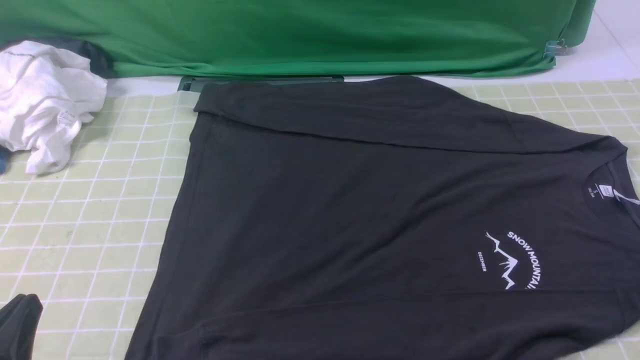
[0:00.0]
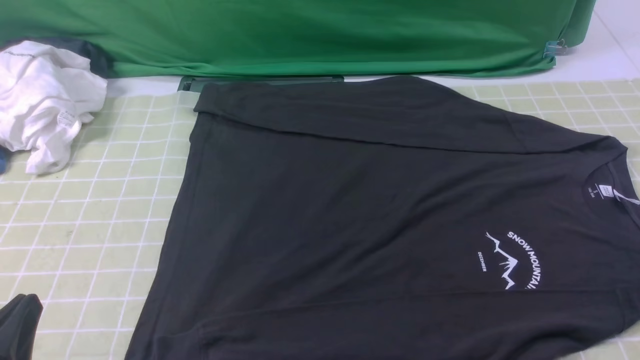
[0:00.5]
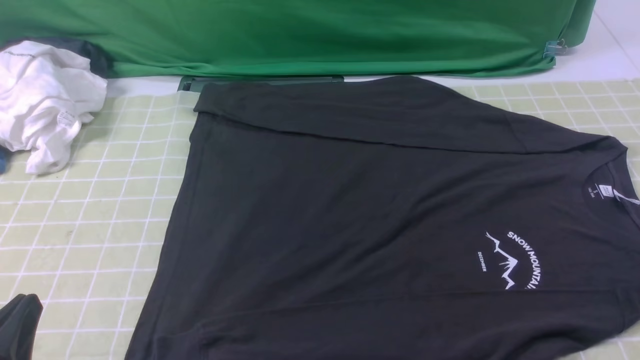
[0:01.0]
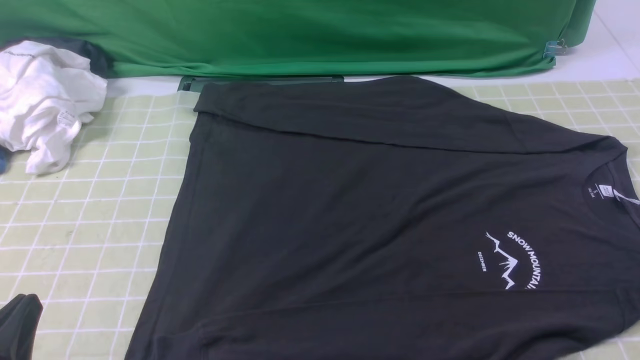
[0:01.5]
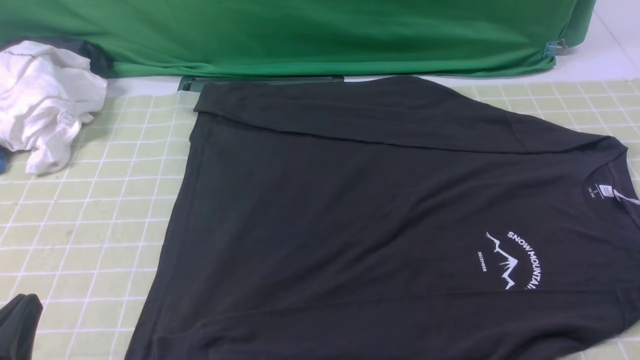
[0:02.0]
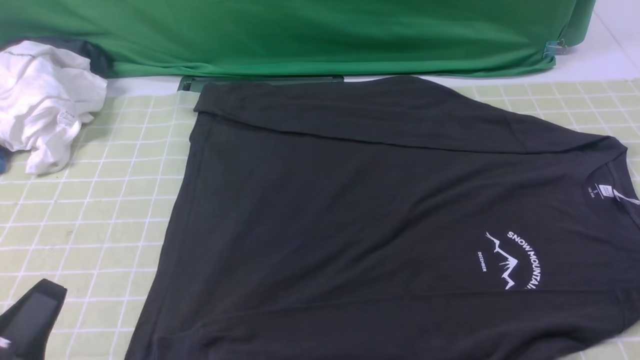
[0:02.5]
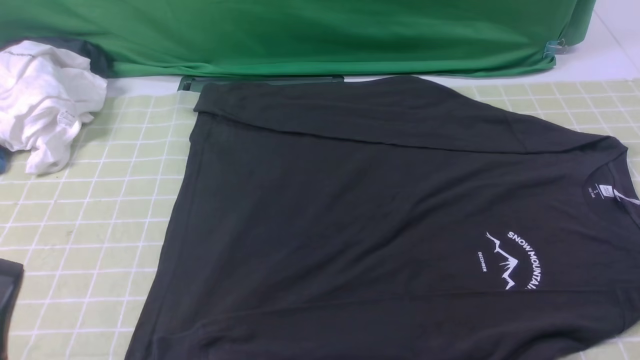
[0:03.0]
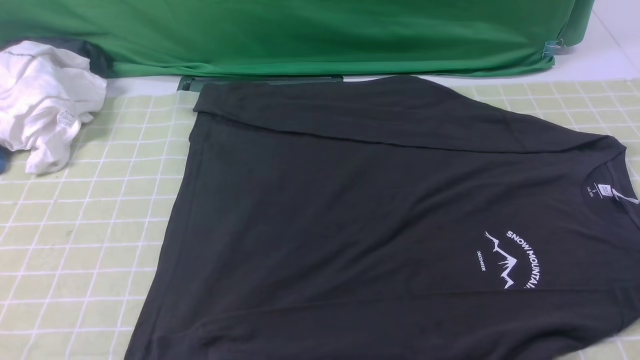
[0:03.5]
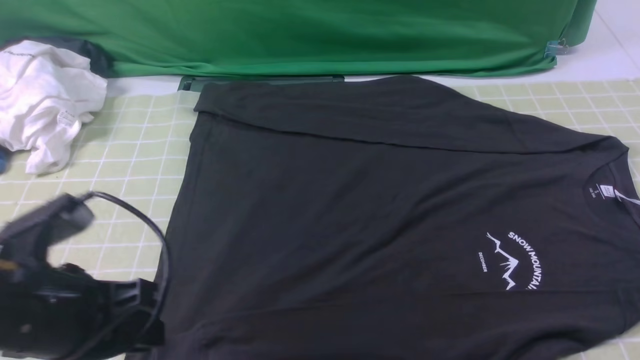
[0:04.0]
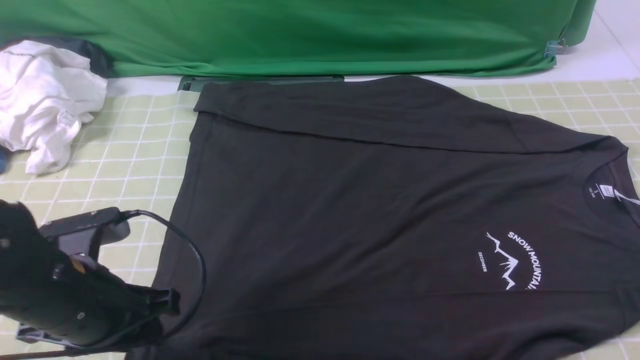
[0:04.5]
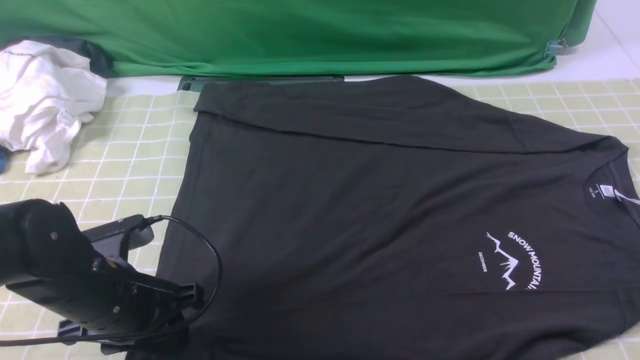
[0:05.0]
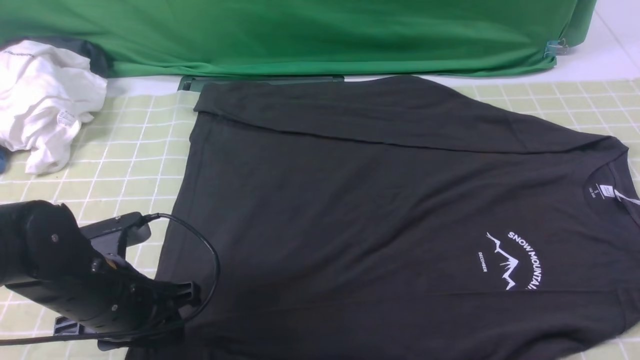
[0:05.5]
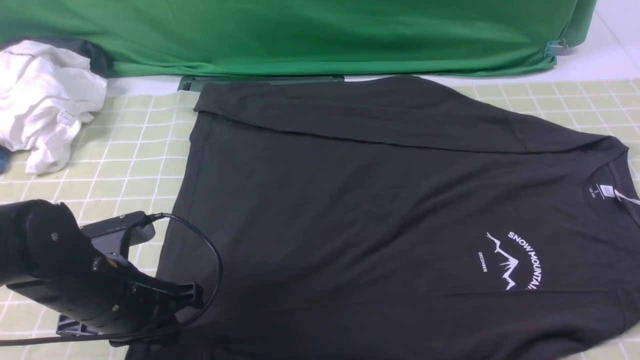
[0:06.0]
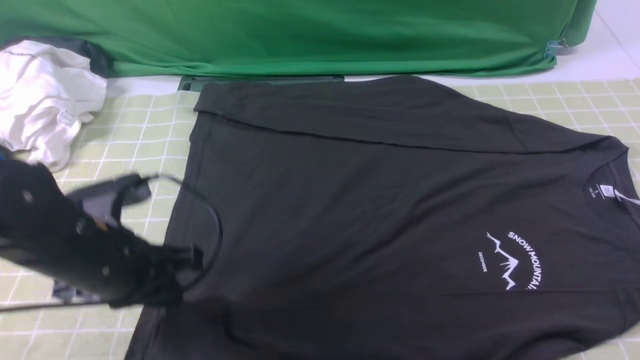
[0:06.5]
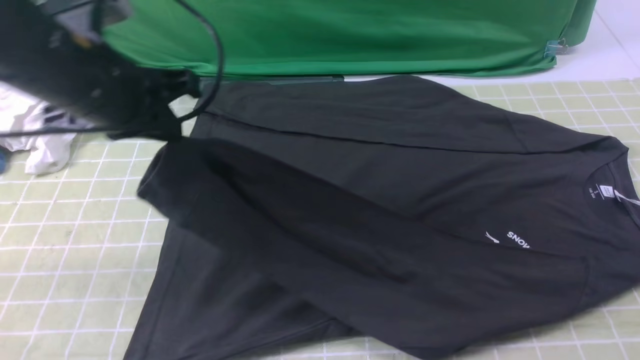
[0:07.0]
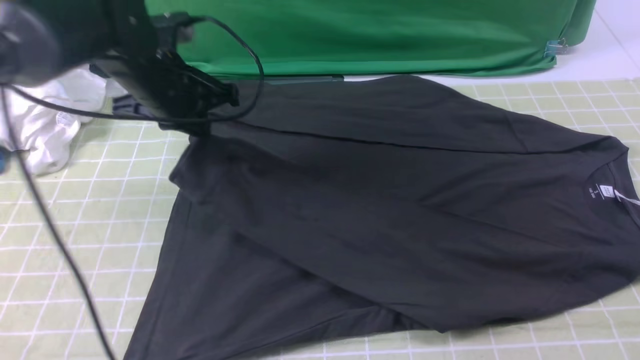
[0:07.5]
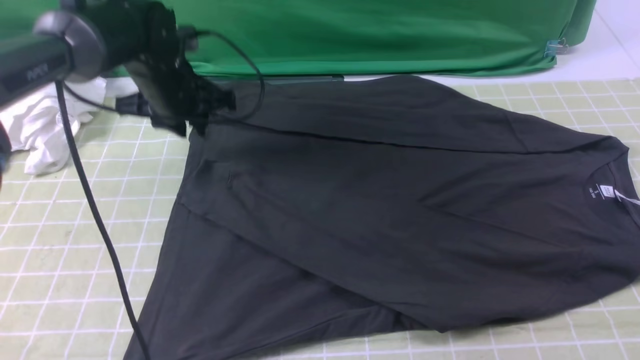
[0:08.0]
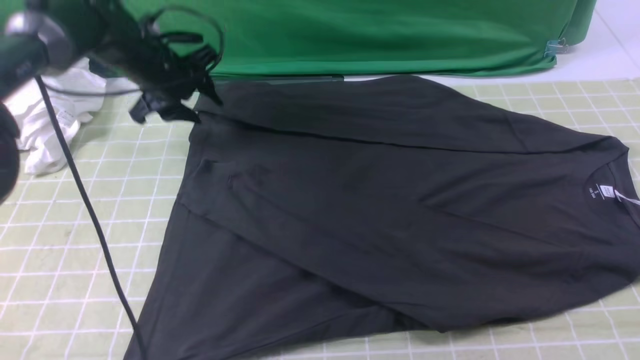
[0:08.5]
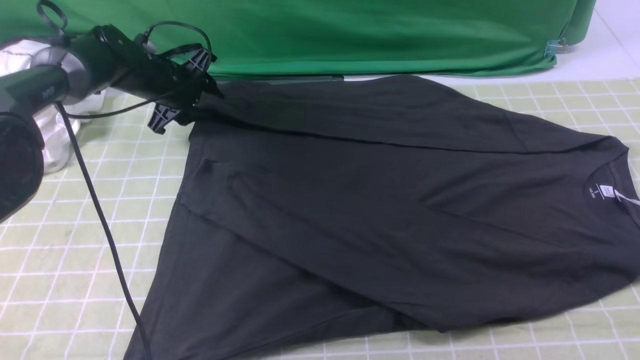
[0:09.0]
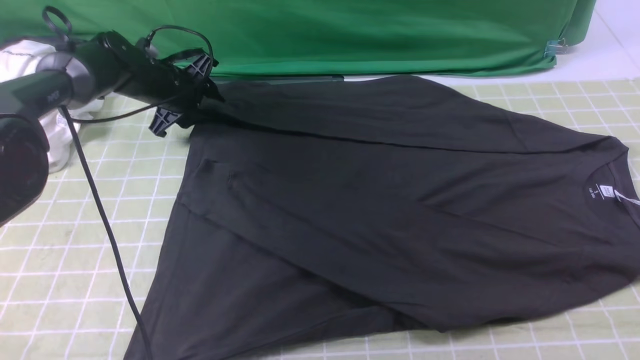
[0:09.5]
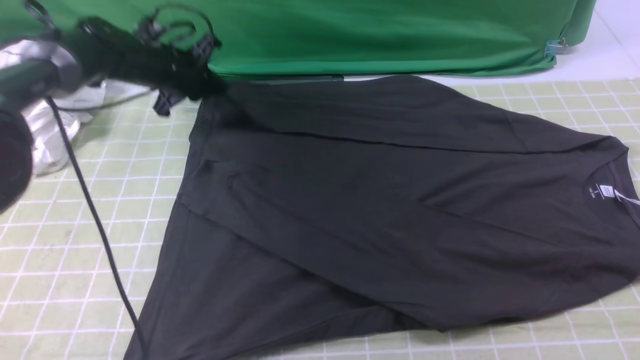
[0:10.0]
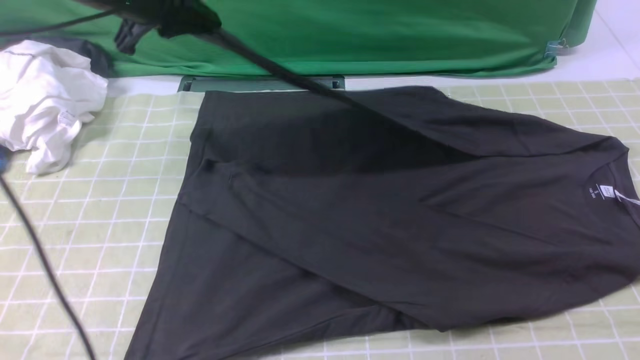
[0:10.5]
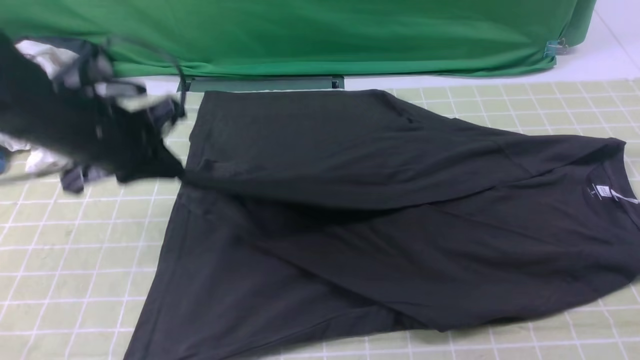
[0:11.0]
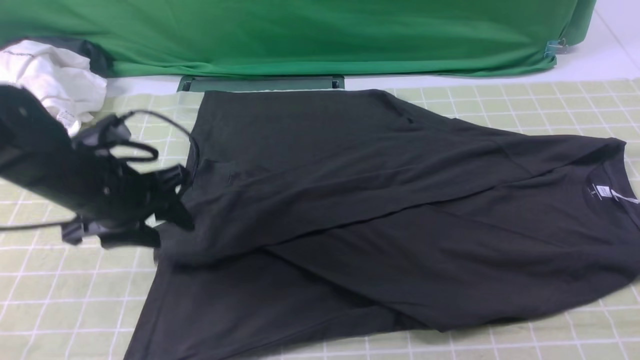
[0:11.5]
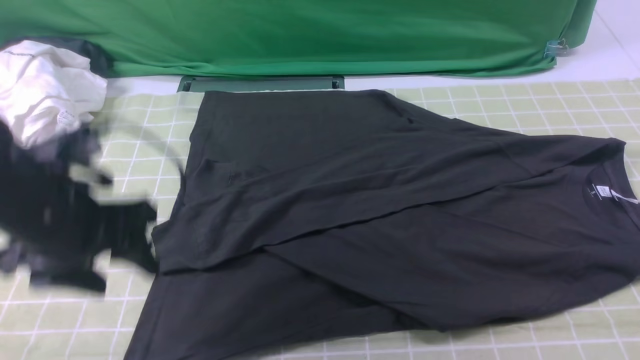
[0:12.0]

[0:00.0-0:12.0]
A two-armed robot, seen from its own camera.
Step, 0:00.0 to 0:06.0: use the left arm to clamp the cuff closest to it.
Step, 0:06.5 to 0:07.5: use the left arm to drag and place the cuff at the centered position on the left edge of the fabric.
Step, 0:08.0 to 0:09.5: use the left arm to clamp the cuff farthest from it.
Step, 0:10.0 to 0:11.5: use the left arm to drag and drop the cuff onto the cuff closest to the left arm.
0:00.0 to 0:02.0: The two grippers keep their place.
0:02.0 to 0:04.0: The left gripper moves forward and upward, roughly 10 cm.
0:04.0 to 0:06.0: The left gripper shifts approximately 10 cm downward and forward.
0:06.0 to 0:08.0: The left gripper moves forward, roughly 25 cm, and opens.
0:08.0 to 0:10.0: The left gripper is displaced forward by about 5 cm, reaches approximately 10 cm downward, then returns, and closes.
0:10.0 to 0:12.0: The left gripper goes approximately 30 cm backward, and opens its fingers.

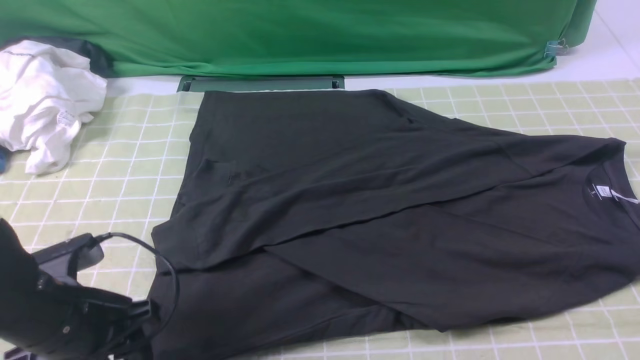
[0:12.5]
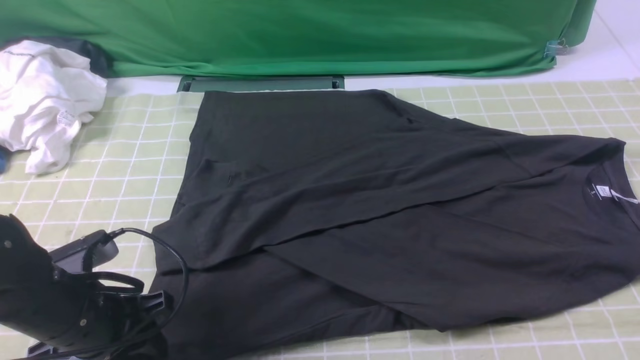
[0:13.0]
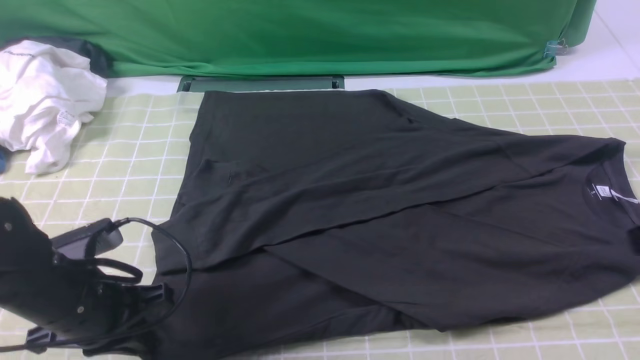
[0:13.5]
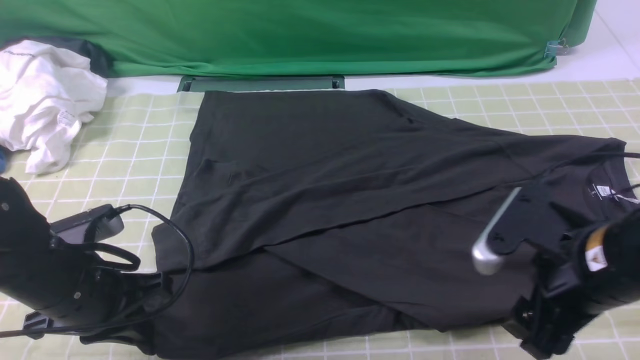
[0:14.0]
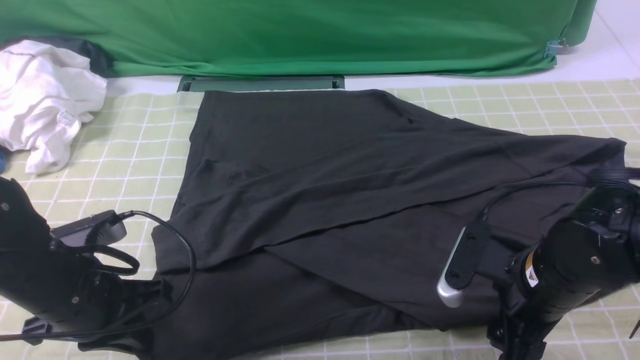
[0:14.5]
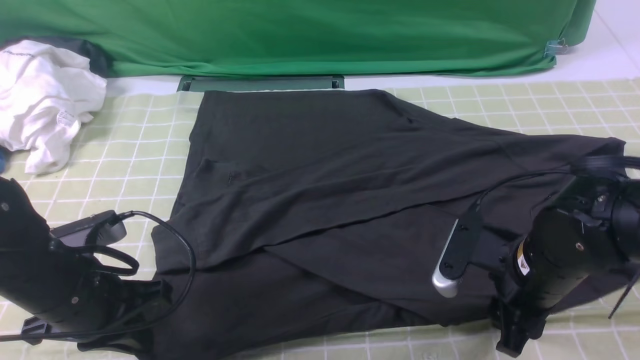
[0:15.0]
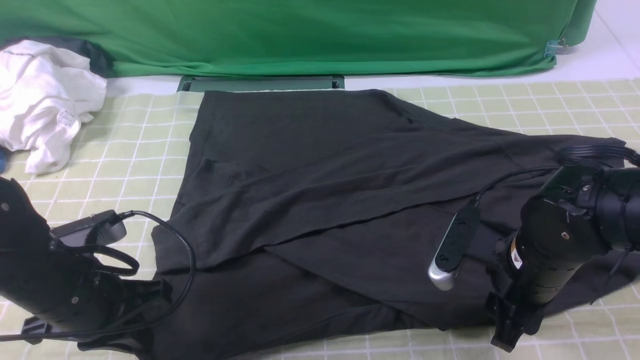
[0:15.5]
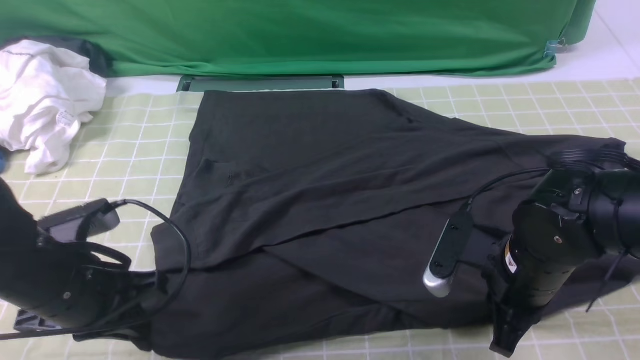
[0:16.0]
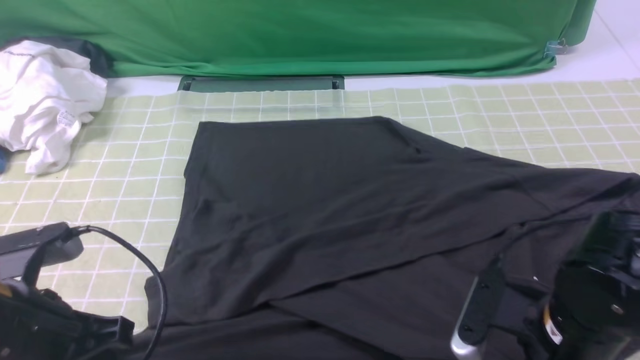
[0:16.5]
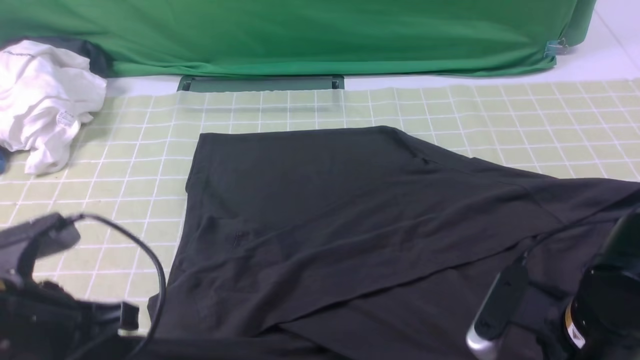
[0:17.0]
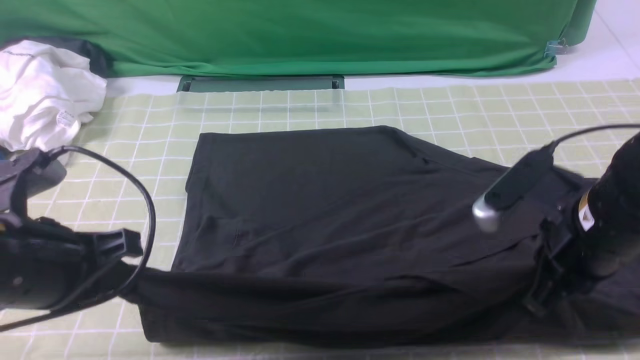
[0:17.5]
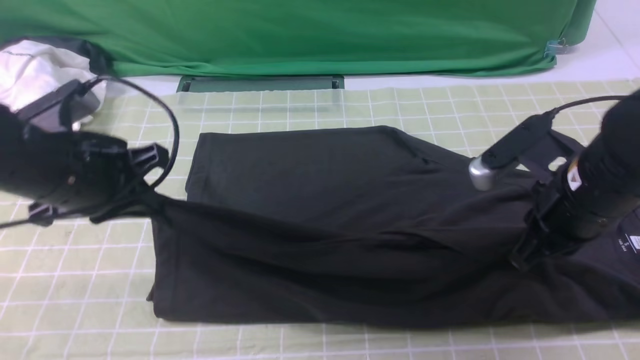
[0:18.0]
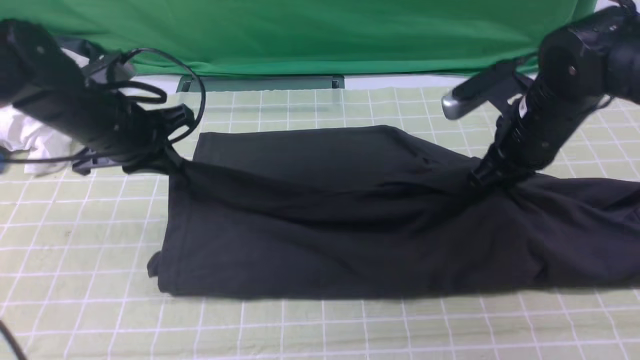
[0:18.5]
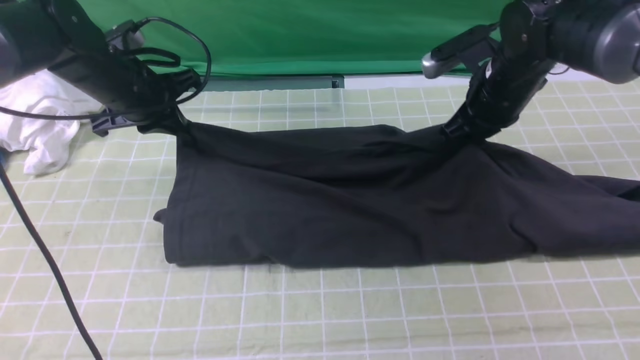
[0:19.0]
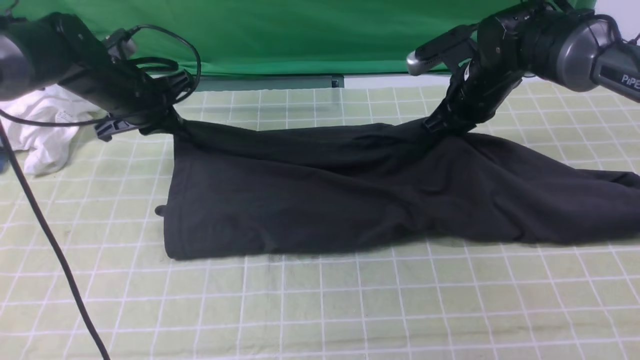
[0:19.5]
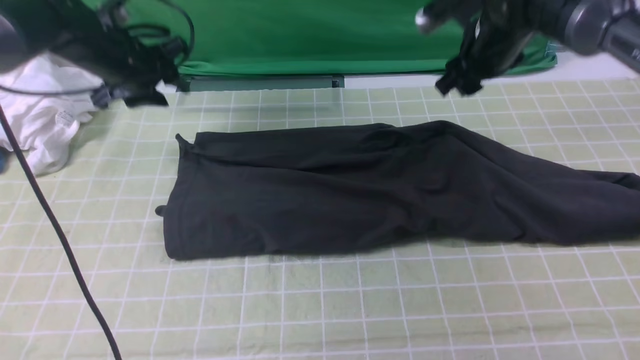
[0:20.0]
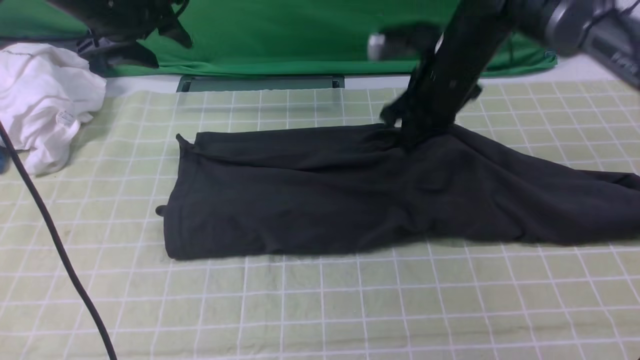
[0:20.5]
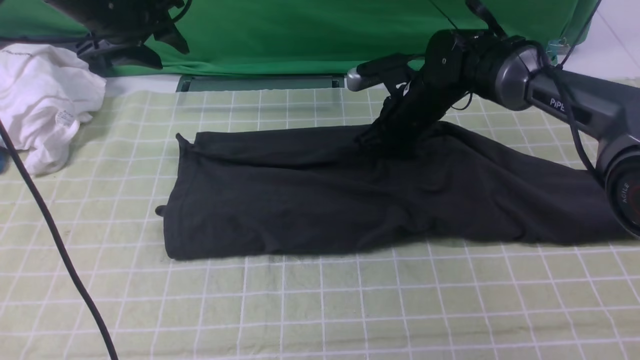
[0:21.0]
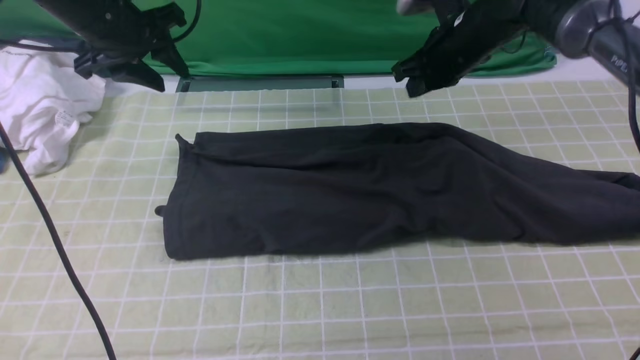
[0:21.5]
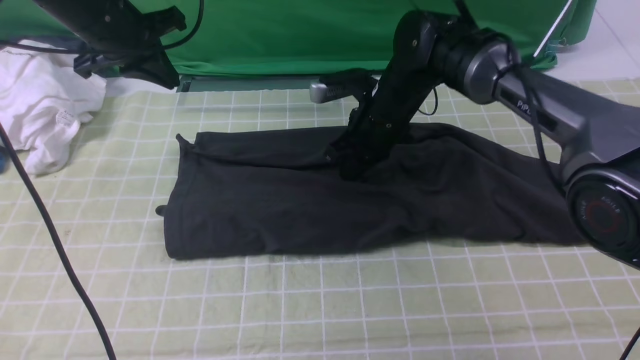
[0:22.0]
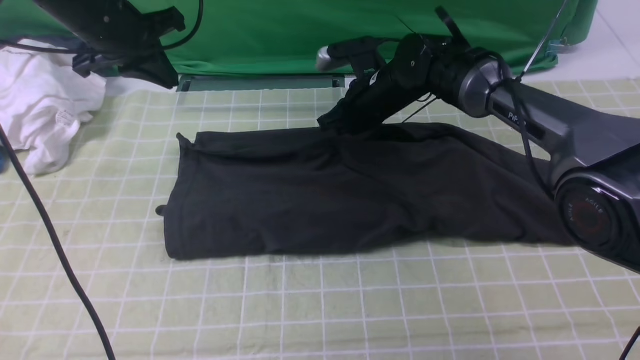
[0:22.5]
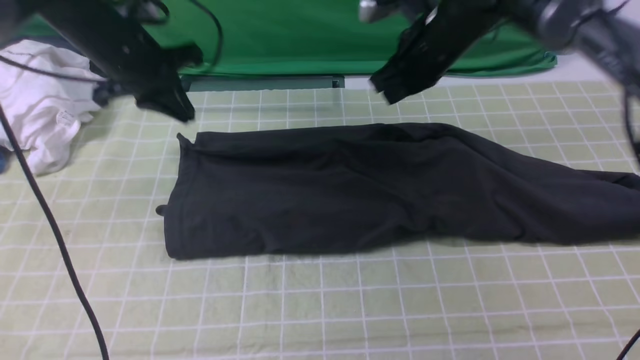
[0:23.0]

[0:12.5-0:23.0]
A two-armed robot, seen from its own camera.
Step, 0:12.5 to 0:16.0: use both arms simultaneously to clamp the lower edge of the clothing fabric.
0:12.5 to 0:14.5: The left gripper closes; the right gripper travels downward and to the left by some 20 cm, and opens up.
0:14.5 to 0:16.5: Both grippers move backward, roughly 5 cm. The right gripper closes.
0:16.5 to 0:19.0: Both grippers move forward, some 30 cm.
0:19.0 to 0:21.0: The right gripper goes about 5 cm to the left, and opens, then closes once more; the left gripper heads upward, covering some 5 cm, and opens.
0:21.0 to 0:23.0: The right gripper moves up and down over approximately 10 cm, changing direction 2 times; the left gripper moves downward, approximately 5 cm, and closes up.
